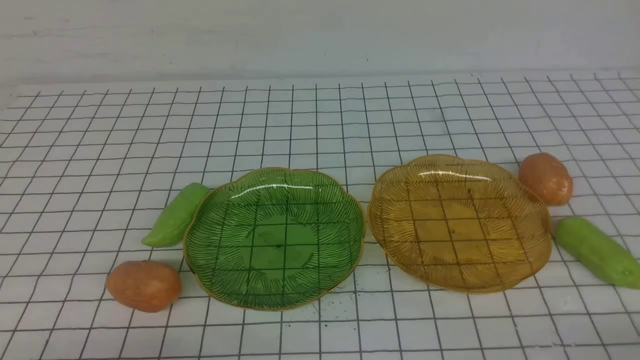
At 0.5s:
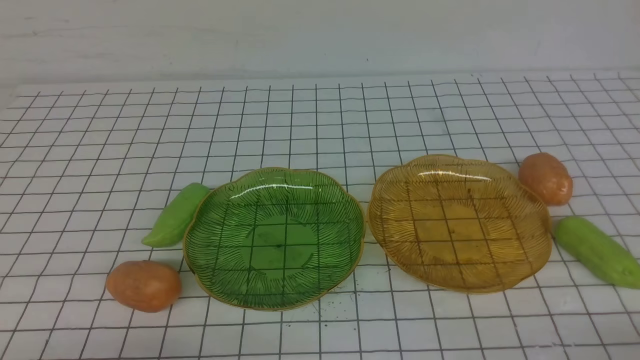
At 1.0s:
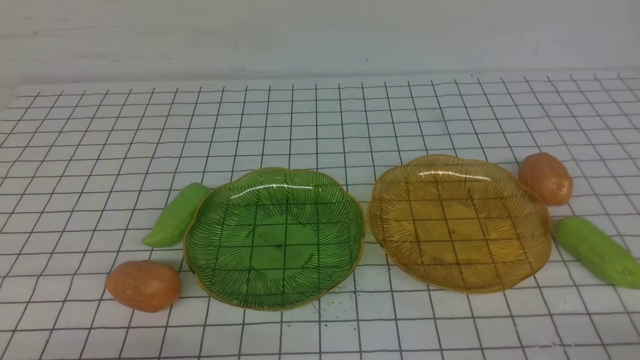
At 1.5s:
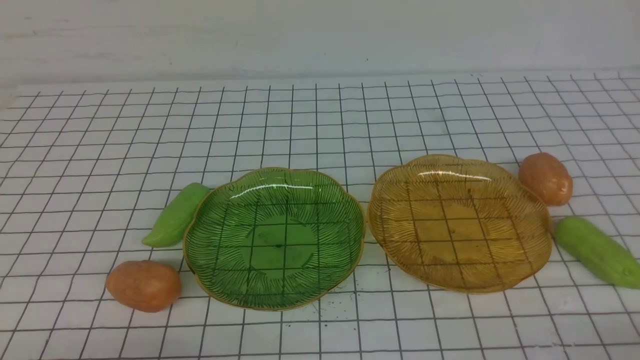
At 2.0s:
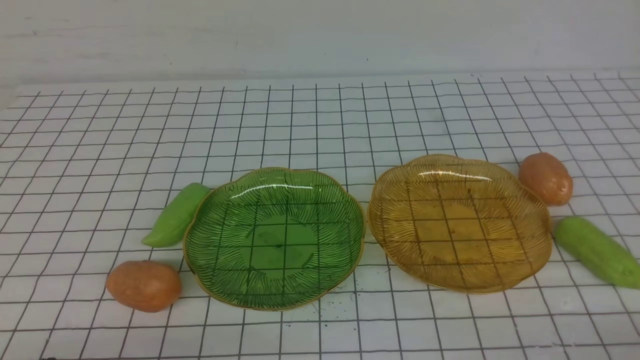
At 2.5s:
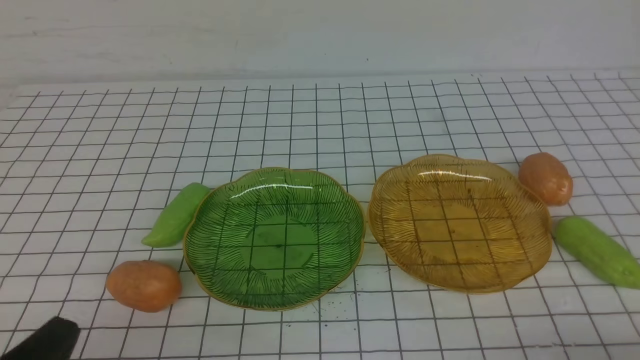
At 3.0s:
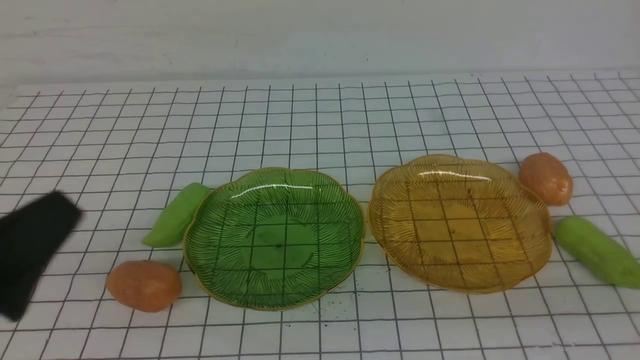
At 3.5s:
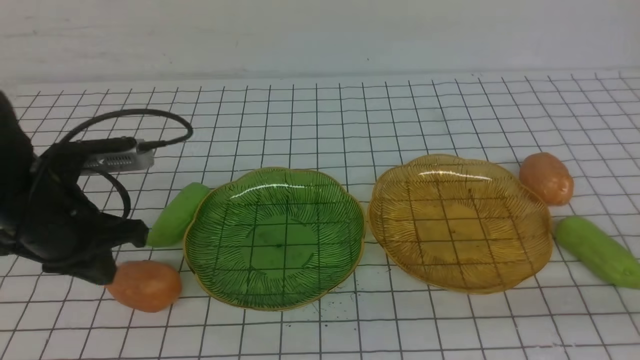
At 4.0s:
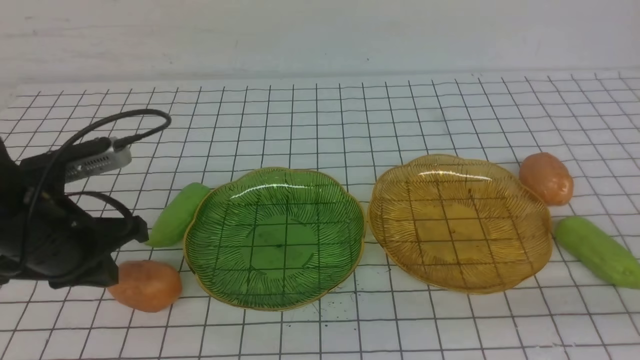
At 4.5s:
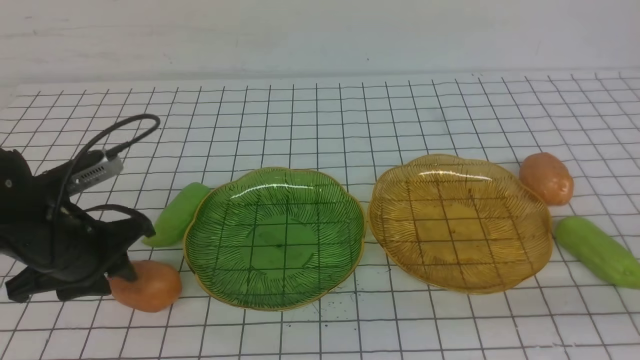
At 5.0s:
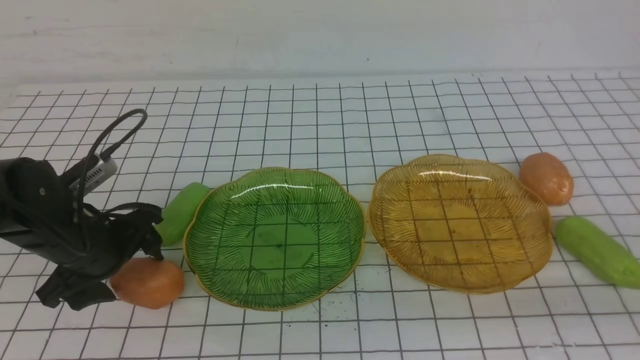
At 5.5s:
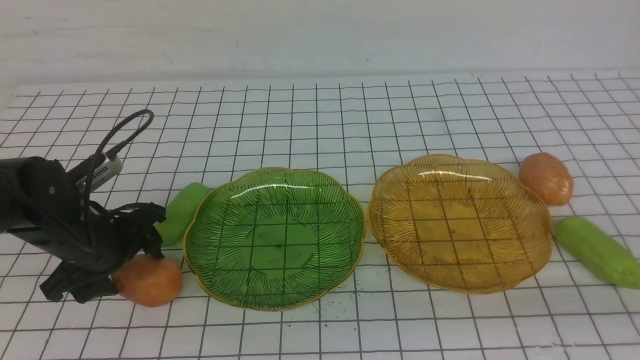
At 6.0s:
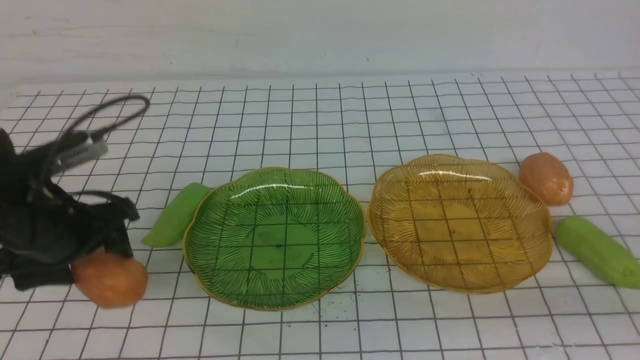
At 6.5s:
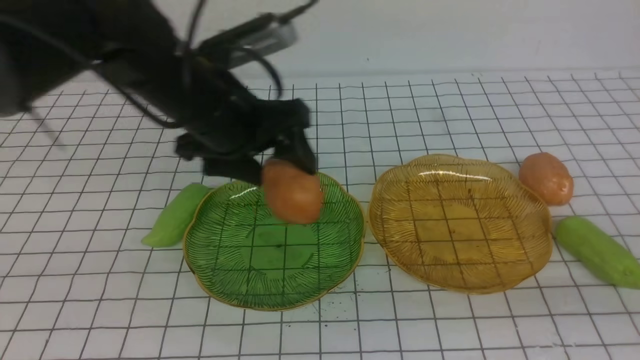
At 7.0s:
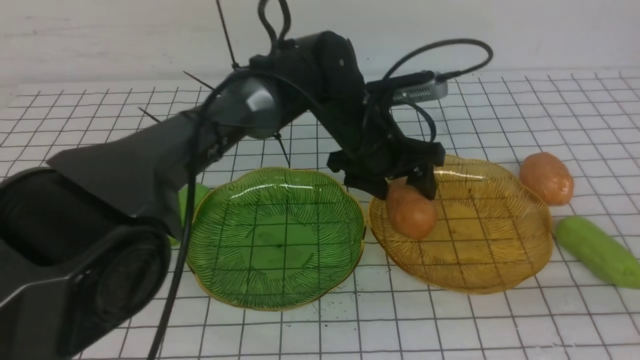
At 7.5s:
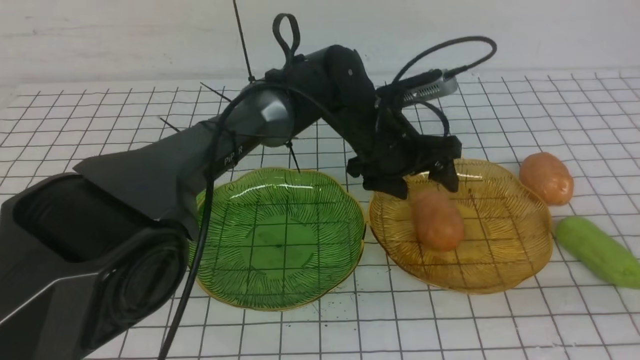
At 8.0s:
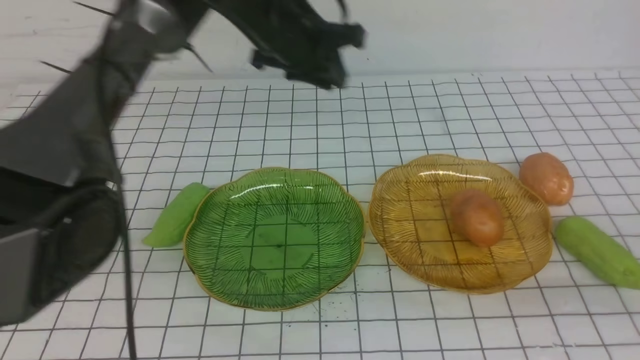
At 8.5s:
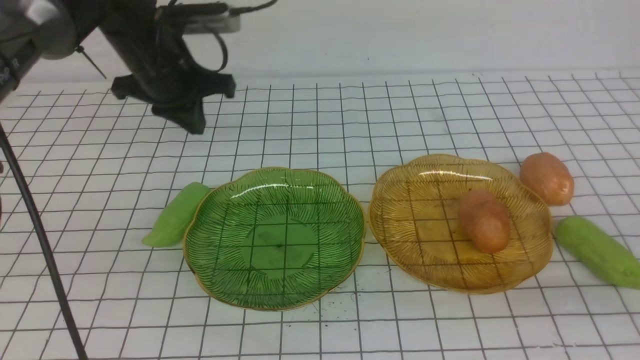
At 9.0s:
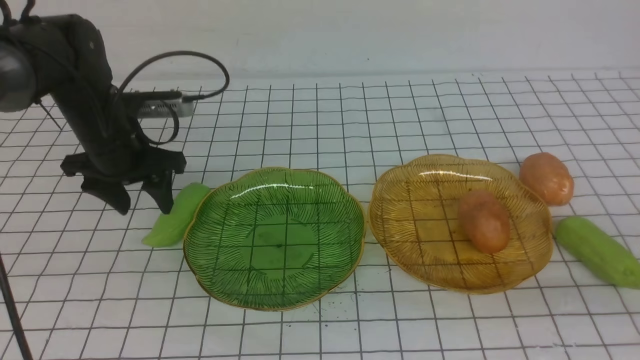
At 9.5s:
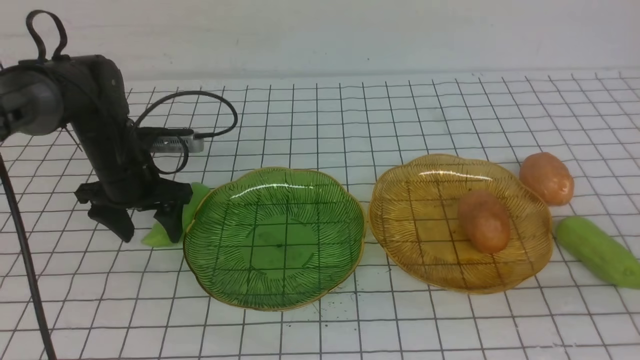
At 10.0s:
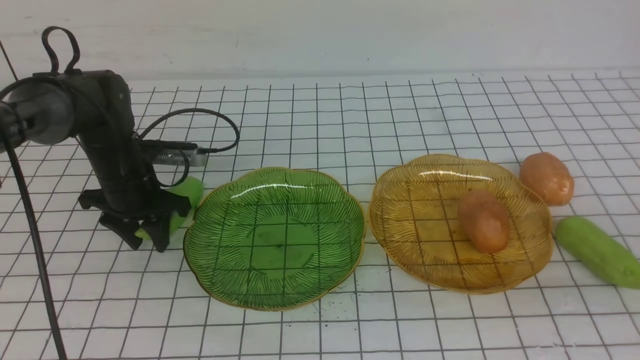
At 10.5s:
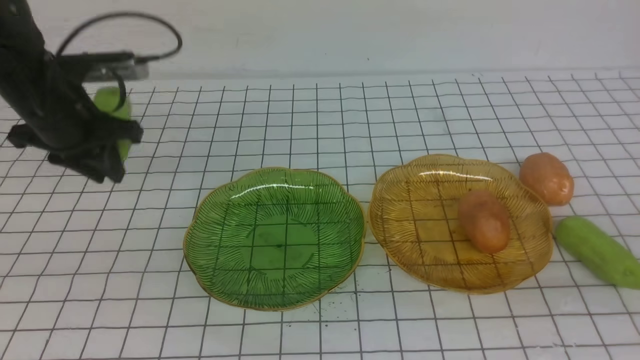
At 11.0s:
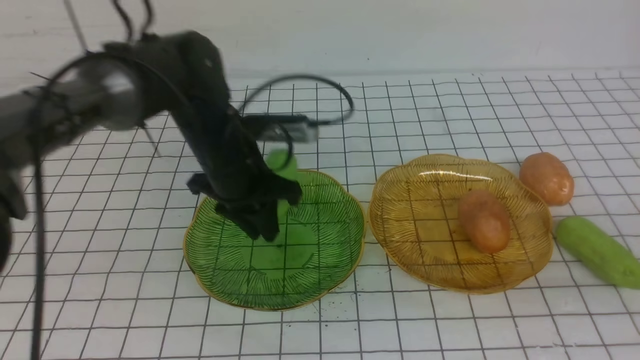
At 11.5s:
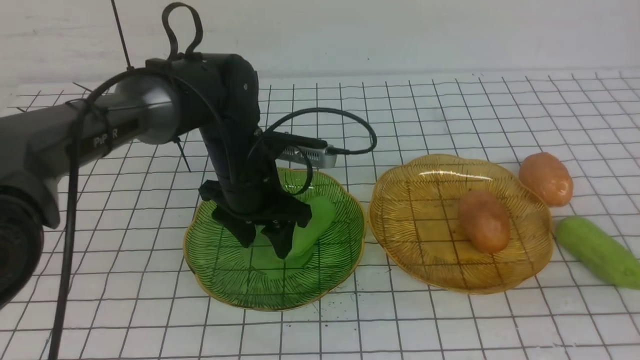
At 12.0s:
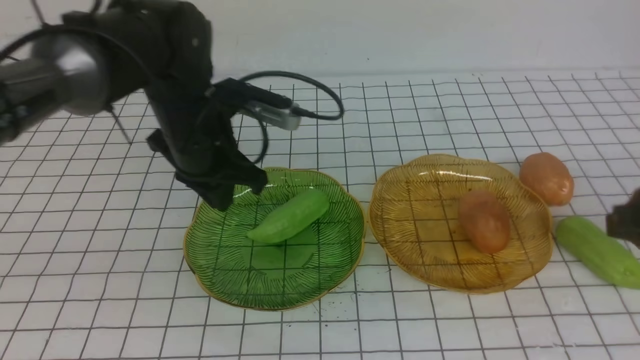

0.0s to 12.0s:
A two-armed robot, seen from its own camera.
Step, 0.0s to 7.5s: Grab a potato with your left arm and put it on the right plate.
Step, 8.0s to 11.5s: use the left arm to grab a chayote and put it into the left plate.
2.0s to 4.0s: The right gripper moves upward, approximately 10 cm. The left gripper is displaced forward by about 20 cm.
4.0s to 6.0s: The left gripper reaches roughly 5 cm downward, then returns, and opens.
6.0s to 8.0s: The left gripper heads forward and to the right, covering about 25 cm, and closes up.
8.0s to 10.0s: The left gripper is displaced to the left and downward by about 25 cm, and opens, then closes again.
10.0s to 12.0s: The left gripper travels to the right, upward and backward by approximately 15 cm, while the right gripper is displaced forward by roughly 10 cm, and opens.

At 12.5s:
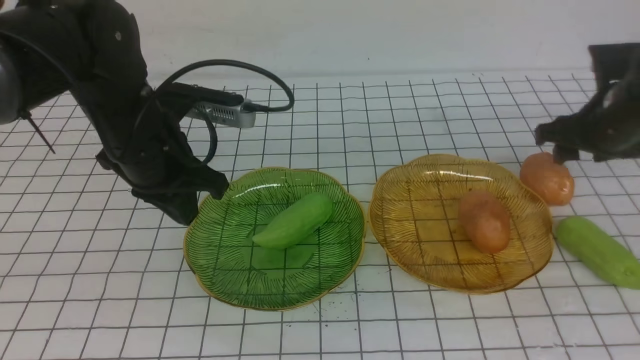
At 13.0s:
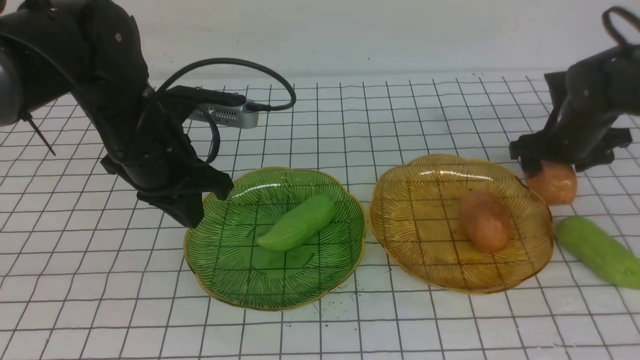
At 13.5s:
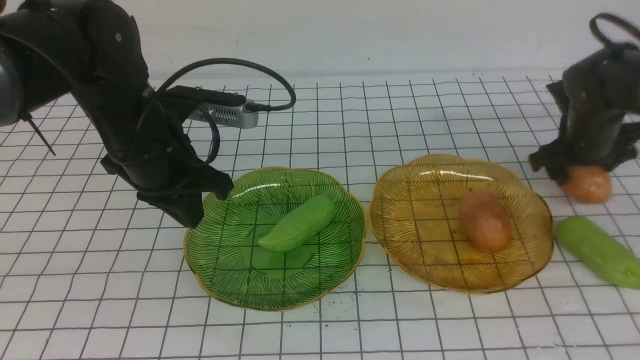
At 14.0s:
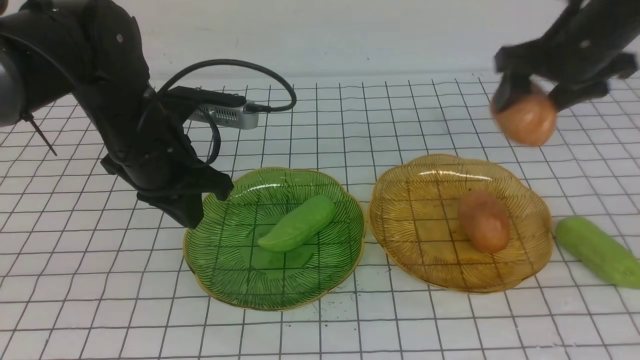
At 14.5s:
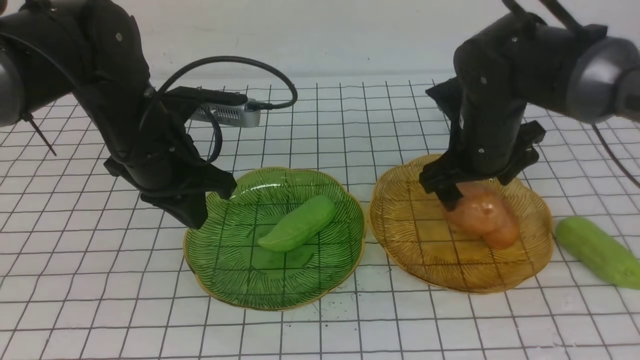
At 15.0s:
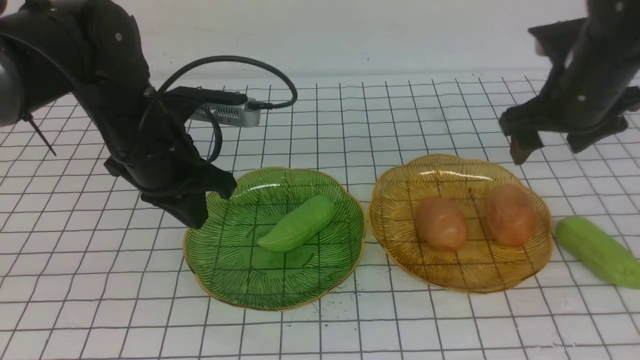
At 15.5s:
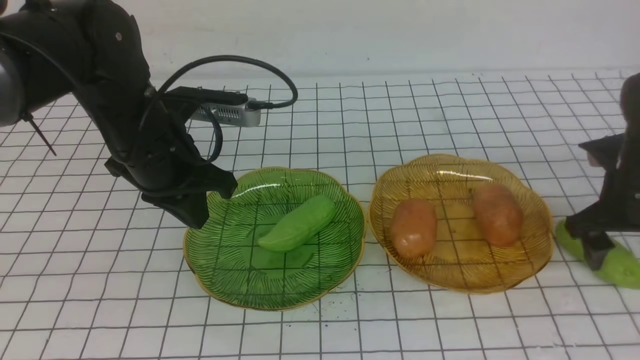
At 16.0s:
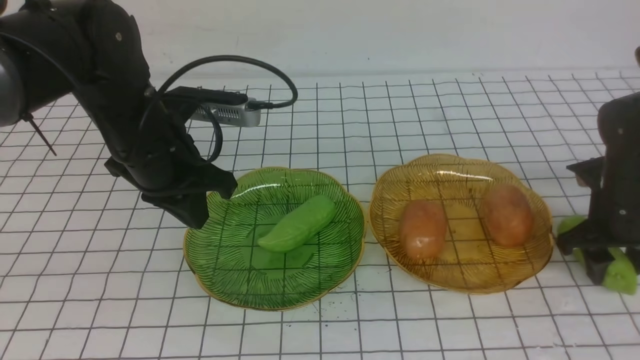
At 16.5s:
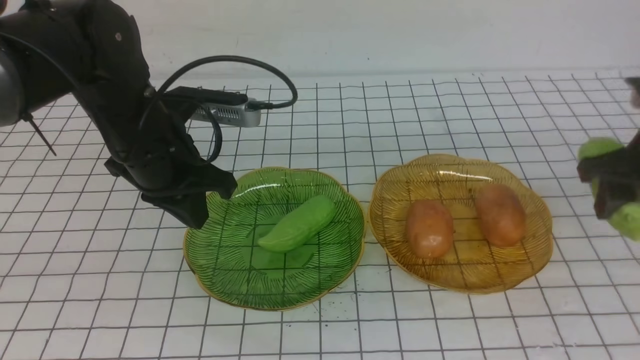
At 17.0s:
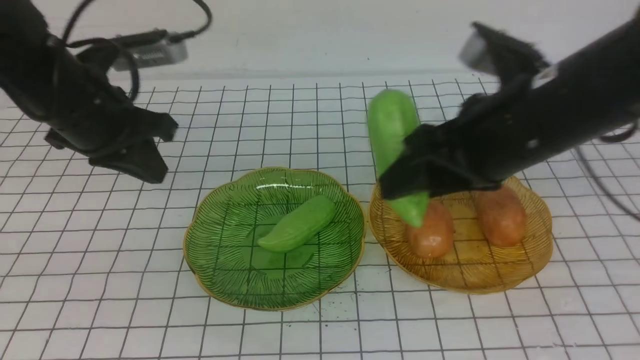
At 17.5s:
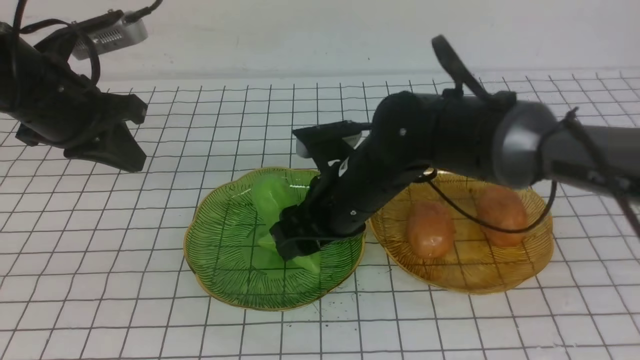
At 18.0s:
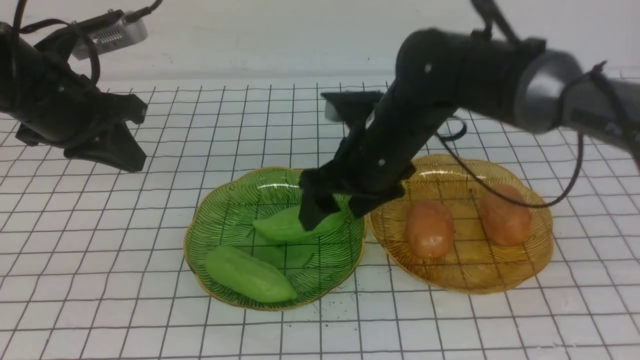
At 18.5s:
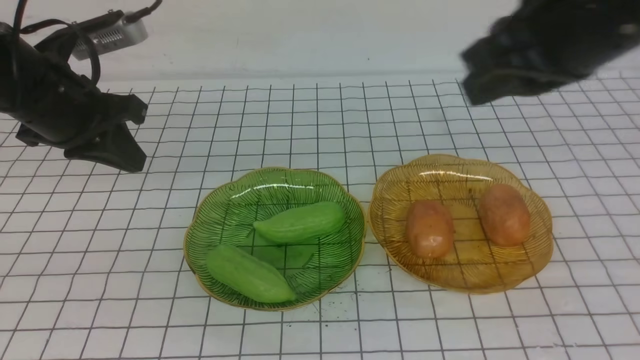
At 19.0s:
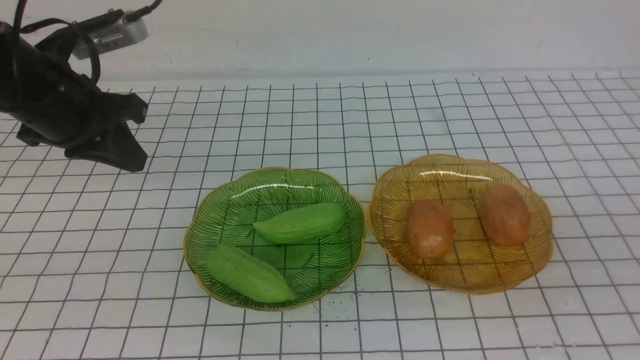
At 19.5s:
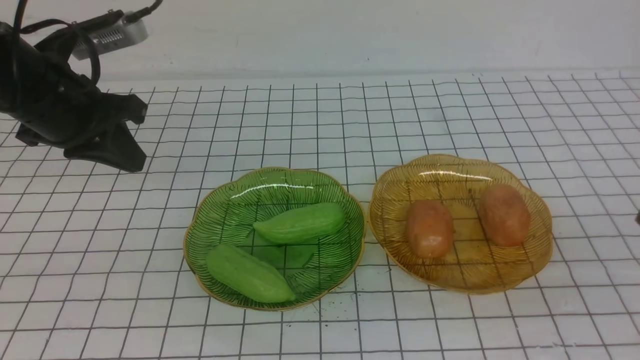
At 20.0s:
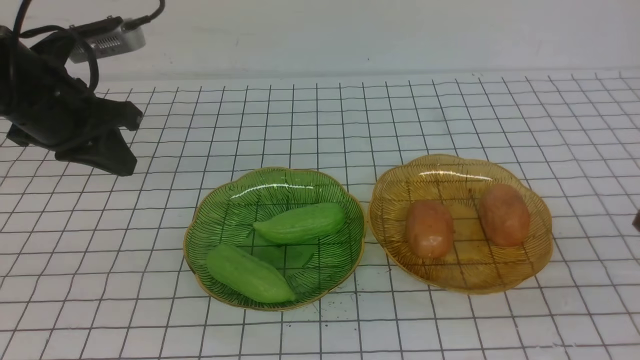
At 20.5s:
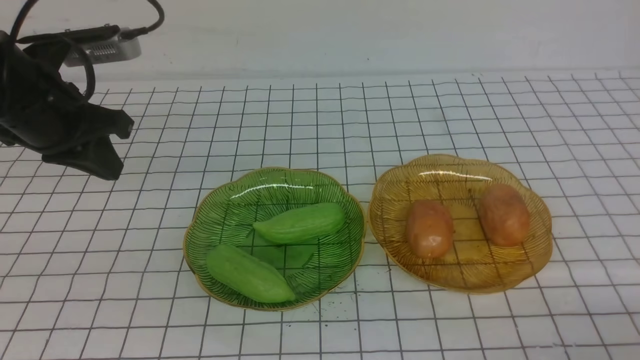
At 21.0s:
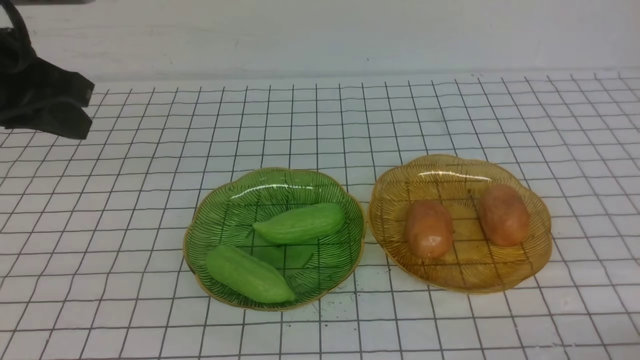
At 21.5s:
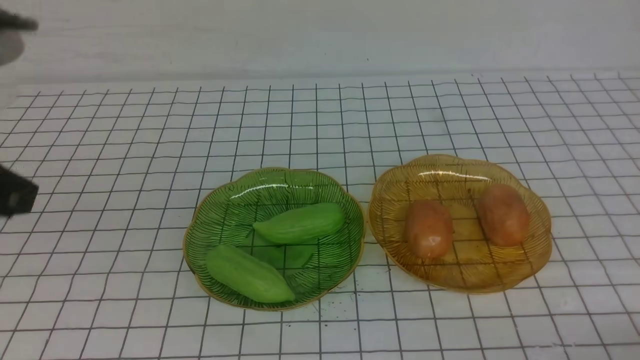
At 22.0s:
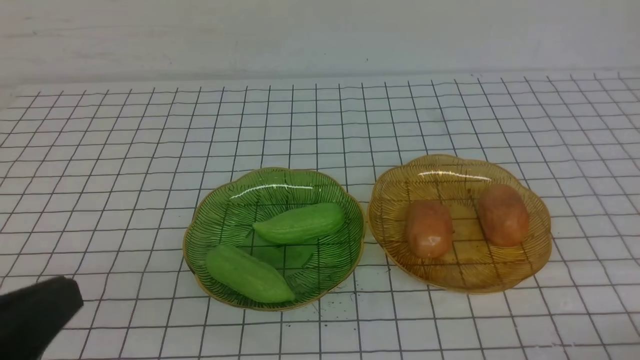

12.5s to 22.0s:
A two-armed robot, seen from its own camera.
Step, 12.5s to 14.5s: Grab a potato with your right arm and put it on the right plate.
Step, 15.0s to 17.5s: use the right arm to grab a carrot and put it into the left plate.
12.5s to 14.5s: The right gripper is displaced to the left by some 15 cm.
14.5s to 16.5s: The right gripper goes roughly 15 cm to the right and backward, and closes up.
16.5s to 18.0s: The left gripper travels to the left by roughly 10 cm. Meanwhile the right gripper heads to the left, covering about 25 cm.
18.0s to 20.0s: The right gripper goes roughly 35 cm backward and to the right, and closes its fingers.
20.0s to 22.0s: The left gripper moves backward, approximately 30 cm; the right gripper moves downward, roughly 10 cm.
